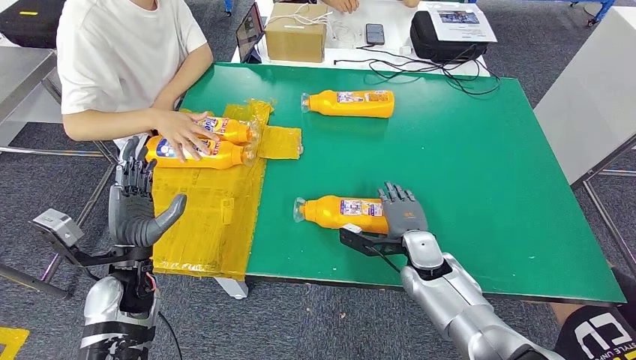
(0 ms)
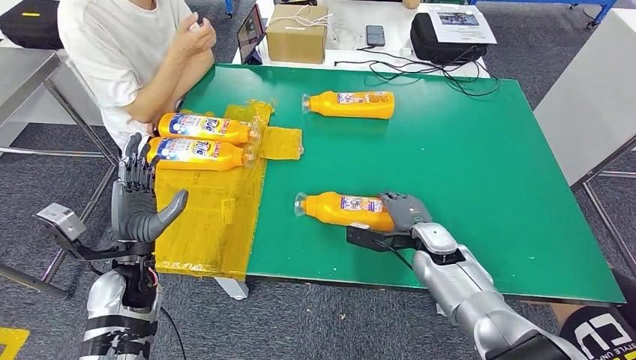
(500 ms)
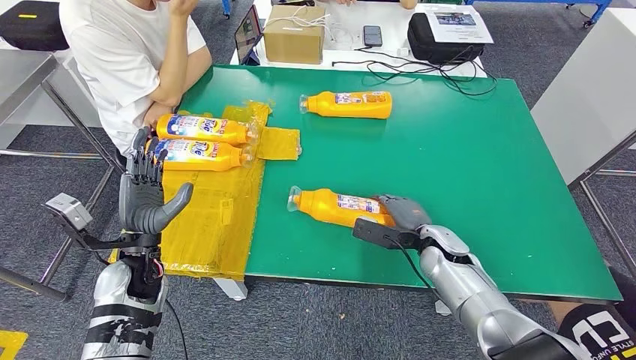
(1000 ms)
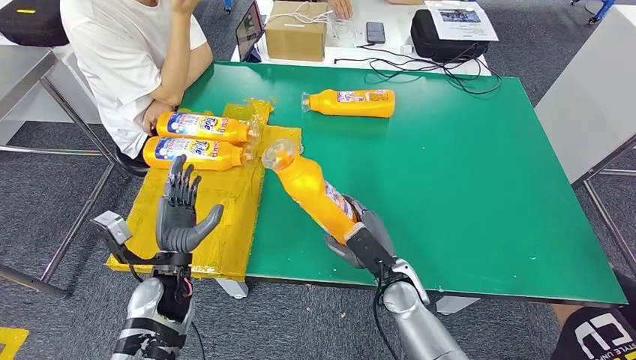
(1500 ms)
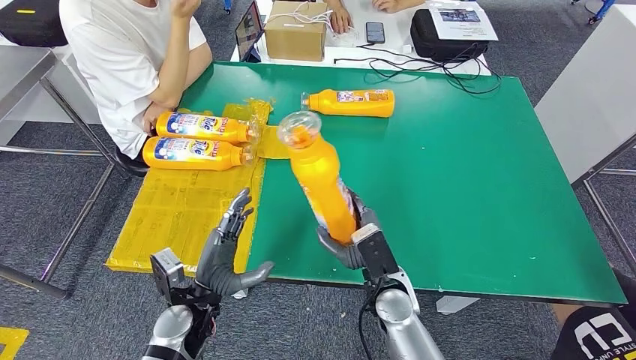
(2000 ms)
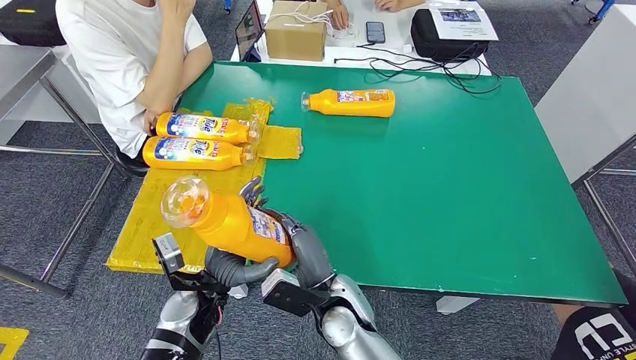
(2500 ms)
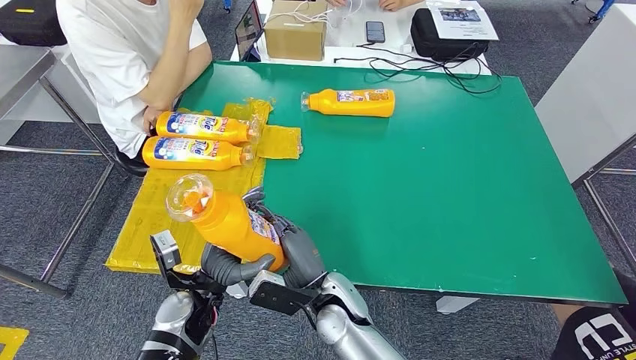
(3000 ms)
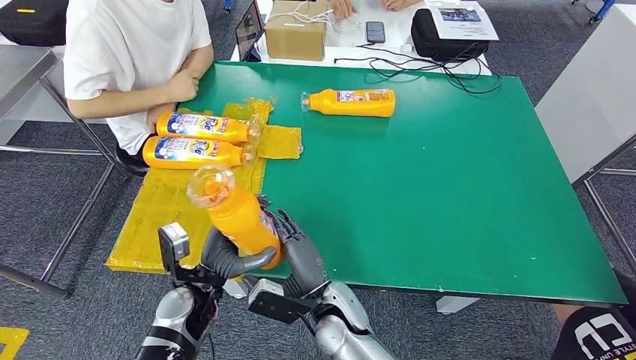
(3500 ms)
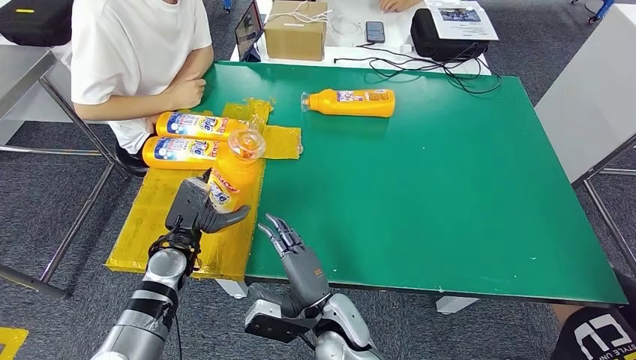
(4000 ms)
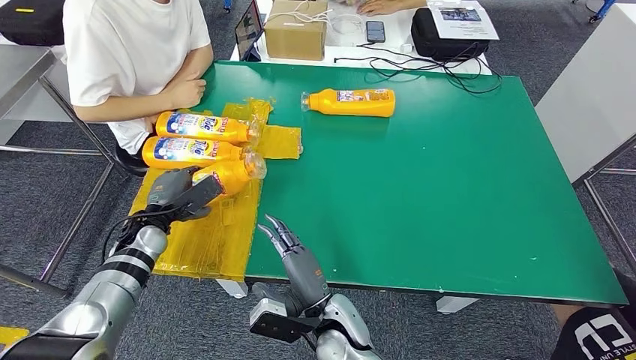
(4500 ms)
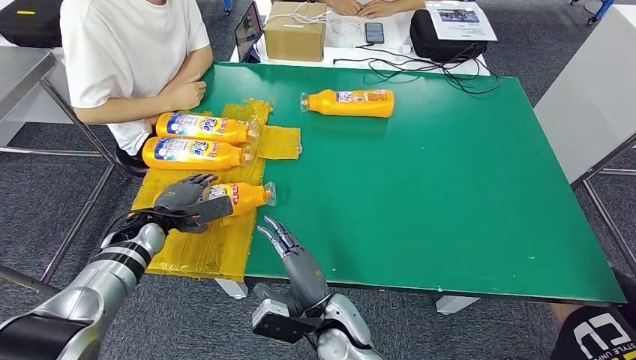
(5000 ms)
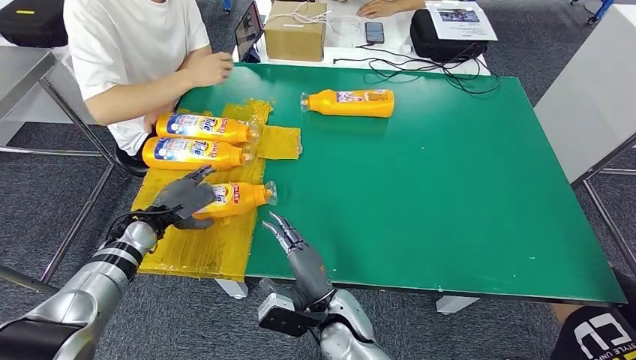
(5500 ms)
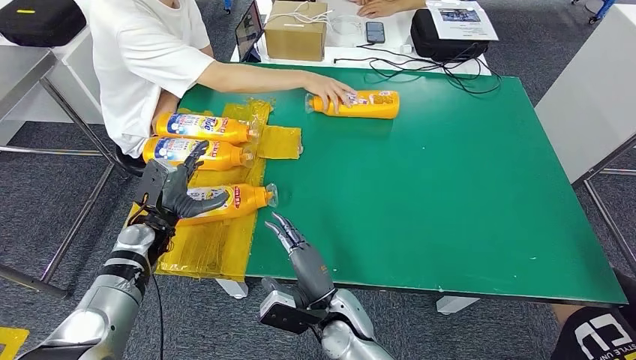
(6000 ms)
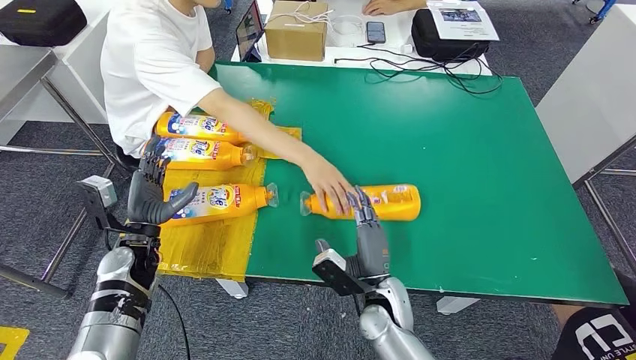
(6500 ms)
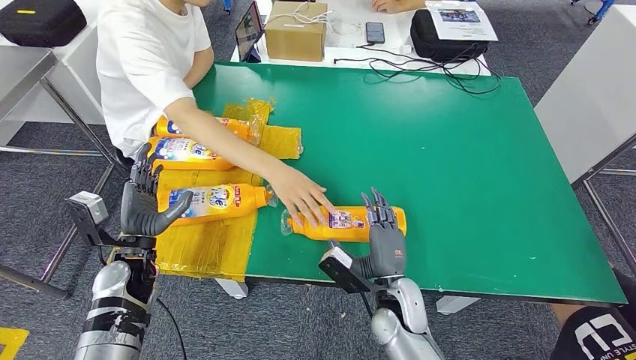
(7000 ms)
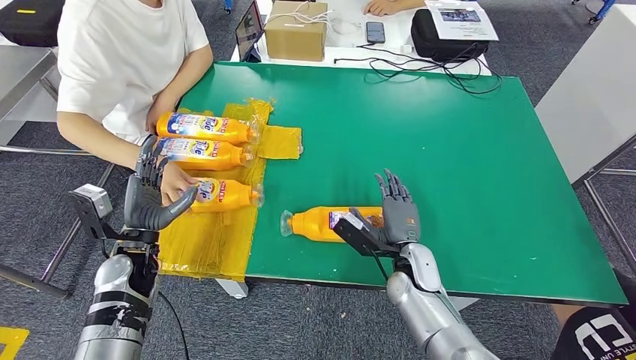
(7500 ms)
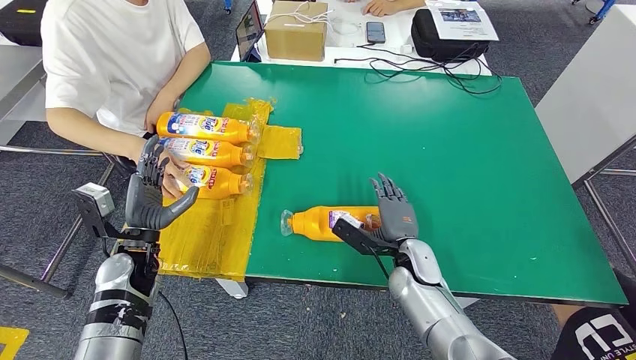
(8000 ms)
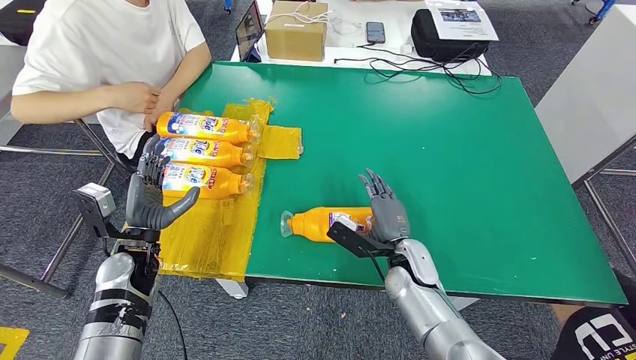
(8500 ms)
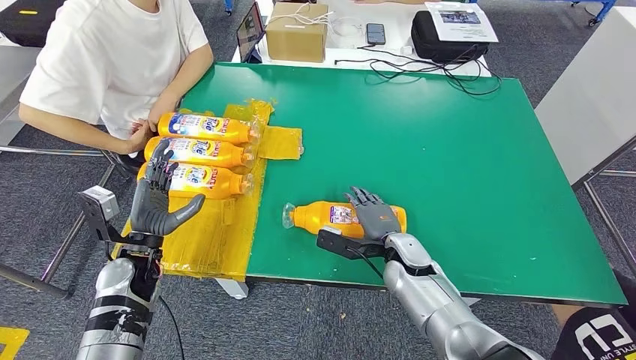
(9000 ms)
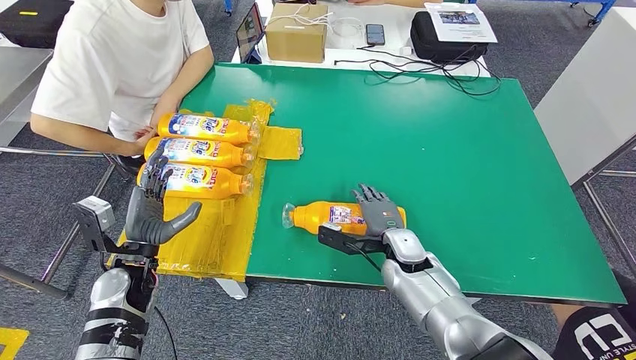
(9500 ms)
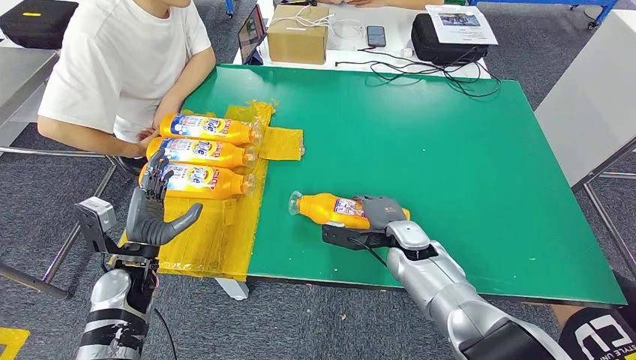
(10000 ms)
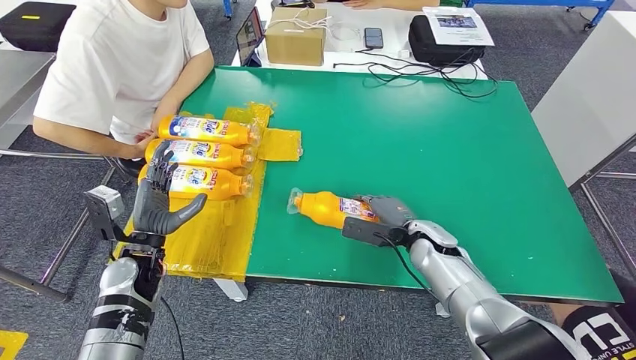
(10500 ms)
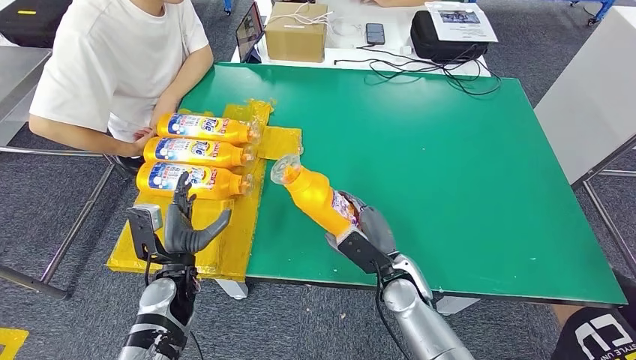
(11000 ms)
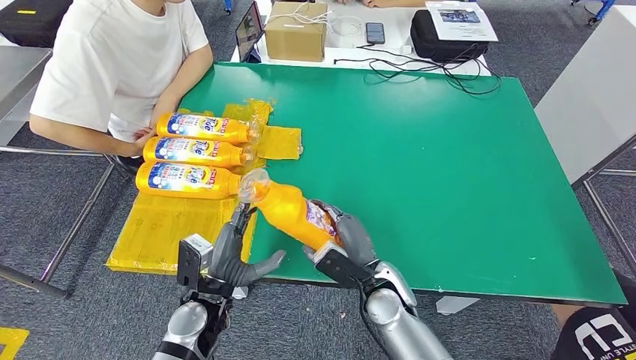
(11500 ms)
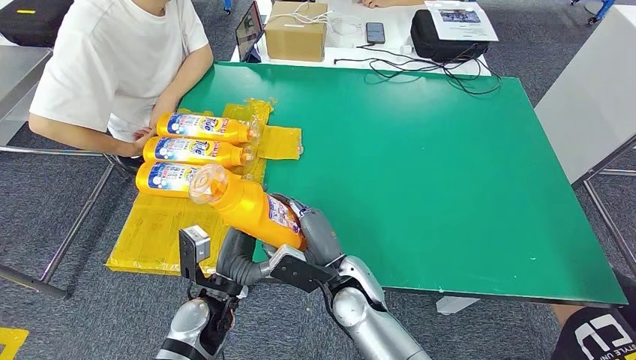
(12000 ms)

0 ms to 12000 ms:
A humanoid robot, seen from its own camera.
Step, 0 ms to 2000 ms: Pick up the fast-moving consumer goods bottle from the table.
Step, 2500 ms to 7000 ms: Flip the fast-moving consumer goods bottle to the front side.
Step, 7500 ms to 10500 ms: Pick up the fast-moving consumer goods bottle from the table.

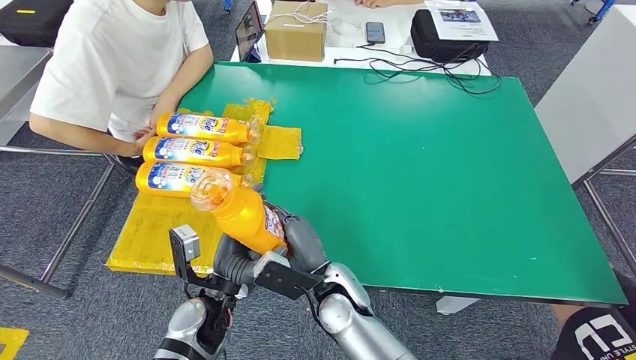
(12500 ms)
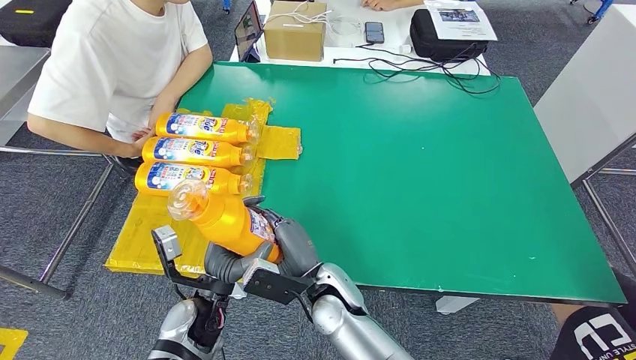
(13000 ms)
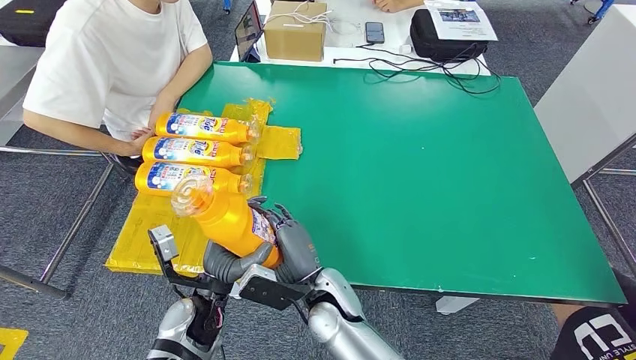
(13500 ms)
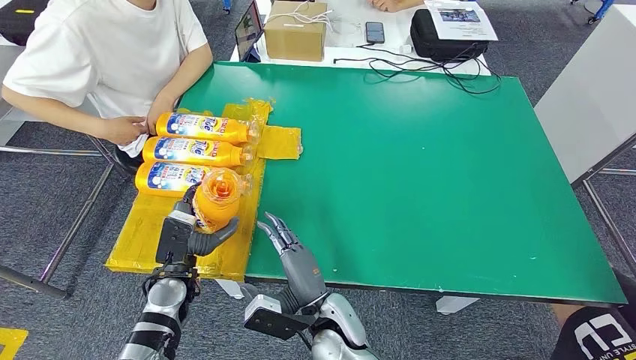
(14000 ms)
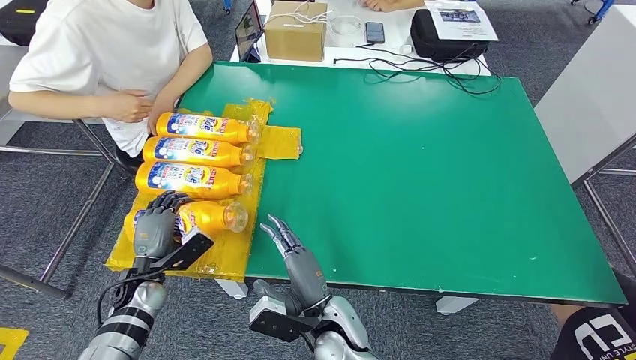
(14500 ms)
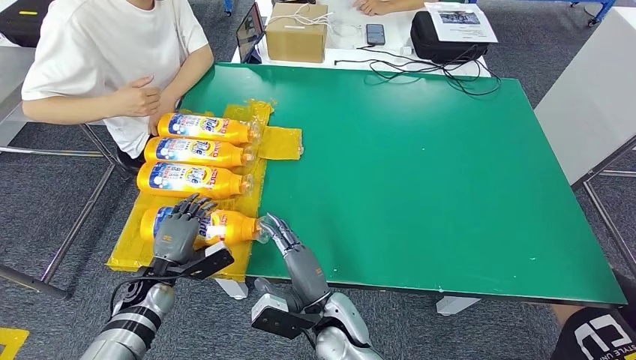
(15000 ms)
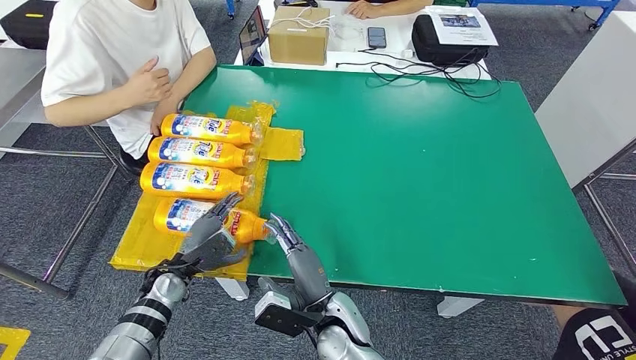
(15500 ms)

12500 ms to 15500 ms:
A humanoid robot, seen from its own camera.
Step, 12500 ms to 15500 ms: Flip the fast-moving consumer goods bottle to the front side.
12500 ms to 14000 ms: The right hand moves approximately 5 cm; the left hand heads to the left, covering roughly 10 cm.
